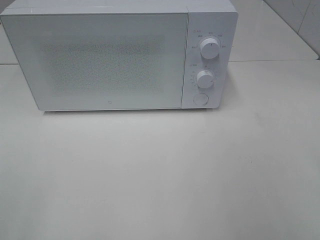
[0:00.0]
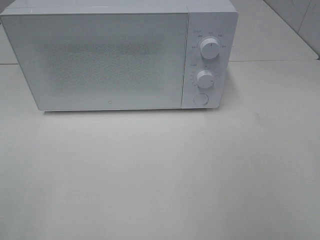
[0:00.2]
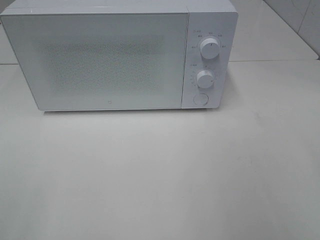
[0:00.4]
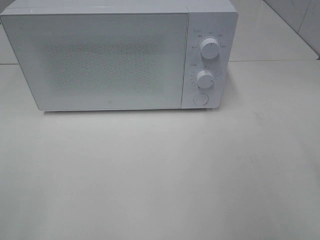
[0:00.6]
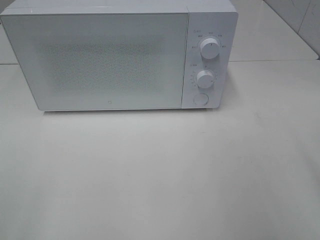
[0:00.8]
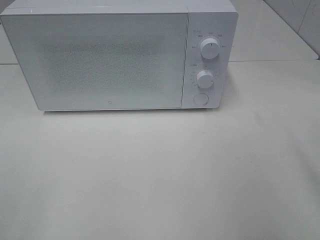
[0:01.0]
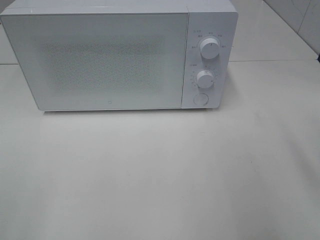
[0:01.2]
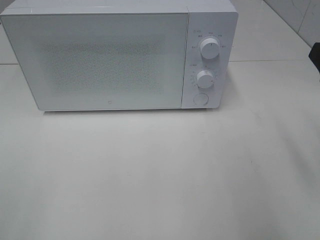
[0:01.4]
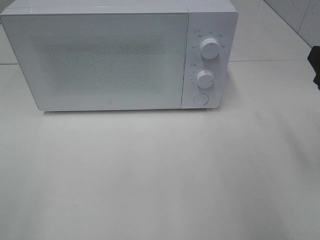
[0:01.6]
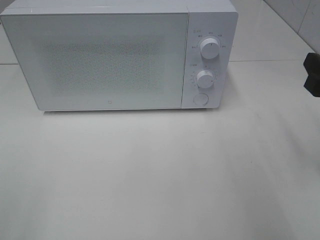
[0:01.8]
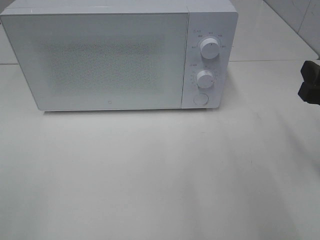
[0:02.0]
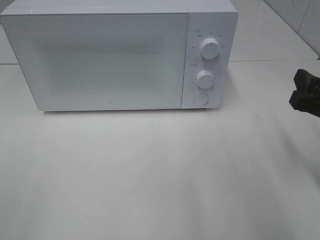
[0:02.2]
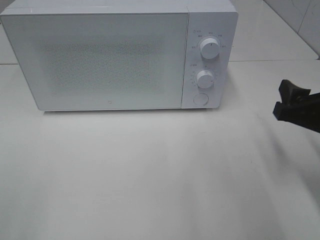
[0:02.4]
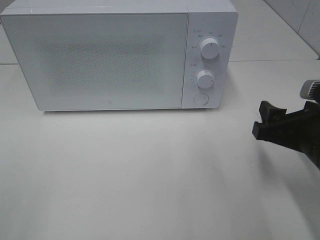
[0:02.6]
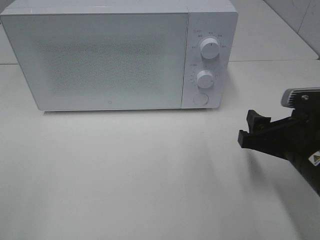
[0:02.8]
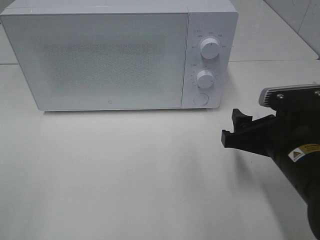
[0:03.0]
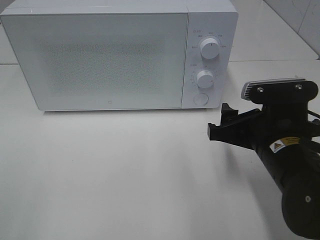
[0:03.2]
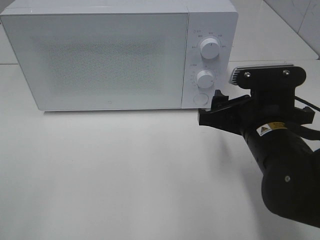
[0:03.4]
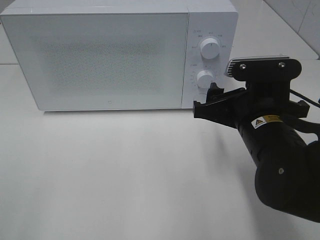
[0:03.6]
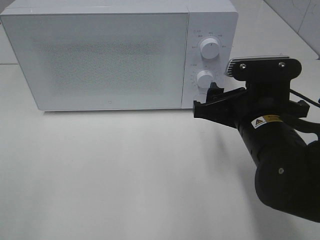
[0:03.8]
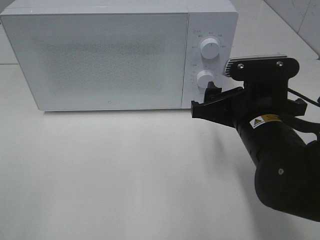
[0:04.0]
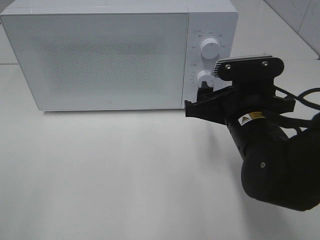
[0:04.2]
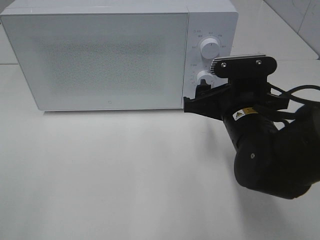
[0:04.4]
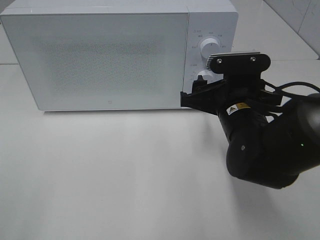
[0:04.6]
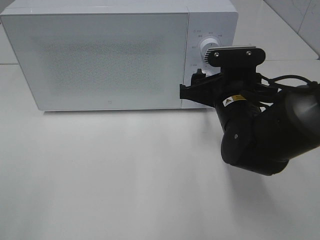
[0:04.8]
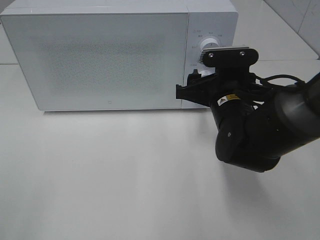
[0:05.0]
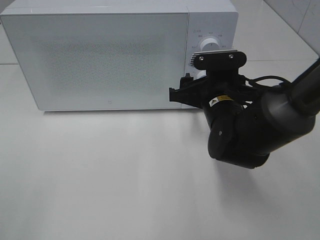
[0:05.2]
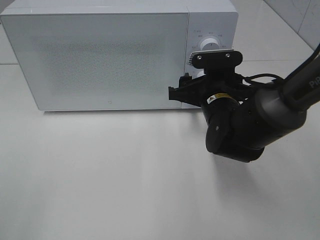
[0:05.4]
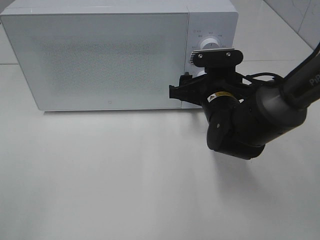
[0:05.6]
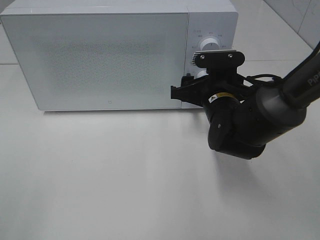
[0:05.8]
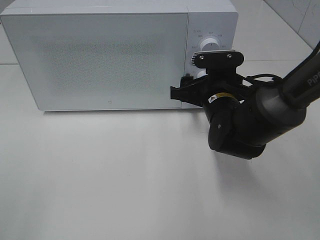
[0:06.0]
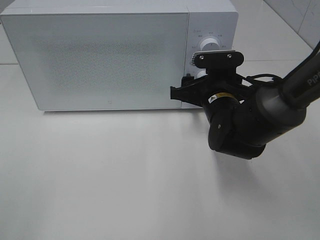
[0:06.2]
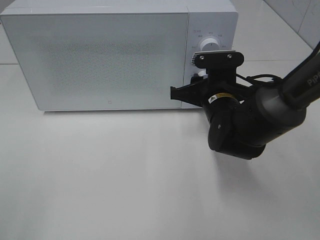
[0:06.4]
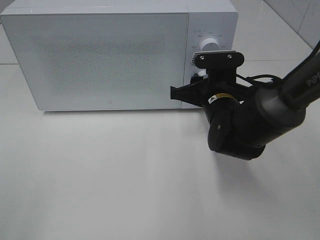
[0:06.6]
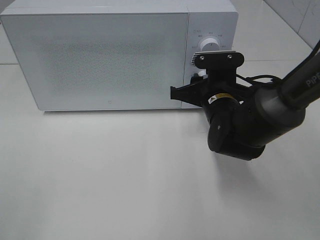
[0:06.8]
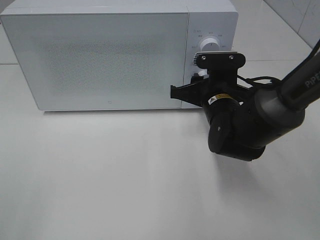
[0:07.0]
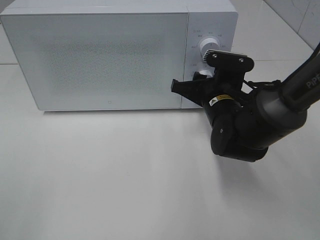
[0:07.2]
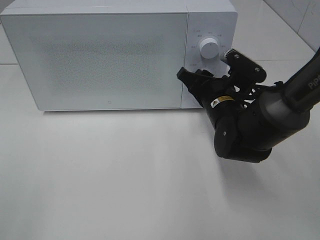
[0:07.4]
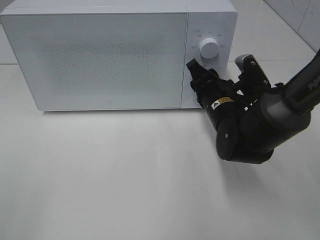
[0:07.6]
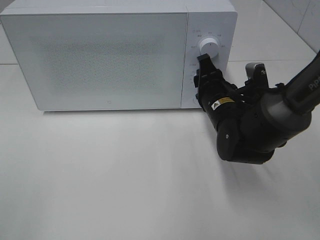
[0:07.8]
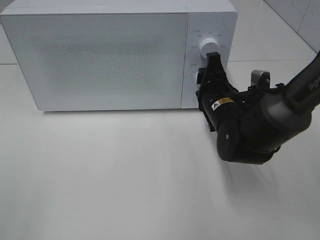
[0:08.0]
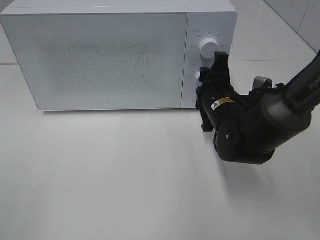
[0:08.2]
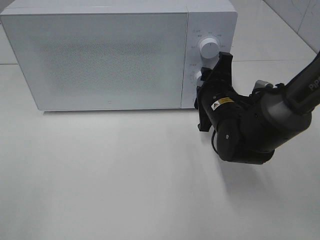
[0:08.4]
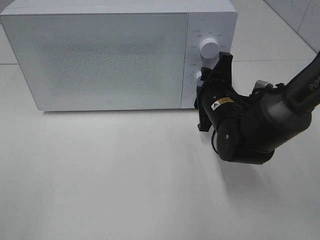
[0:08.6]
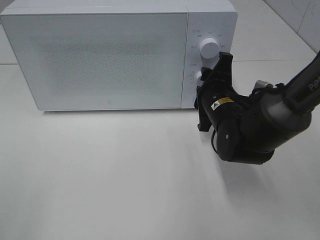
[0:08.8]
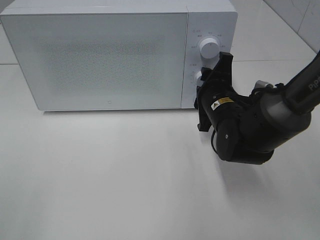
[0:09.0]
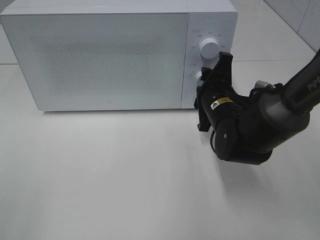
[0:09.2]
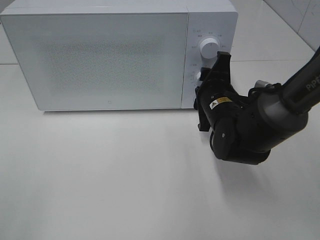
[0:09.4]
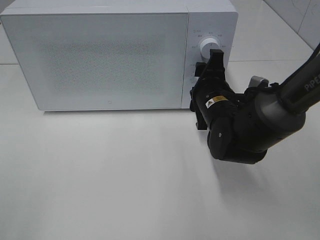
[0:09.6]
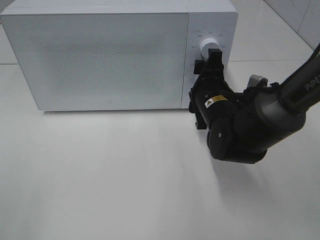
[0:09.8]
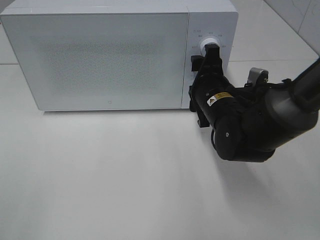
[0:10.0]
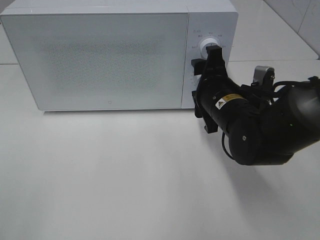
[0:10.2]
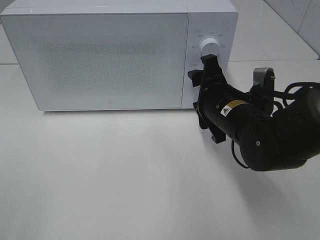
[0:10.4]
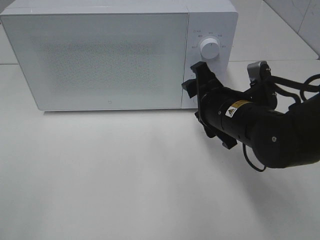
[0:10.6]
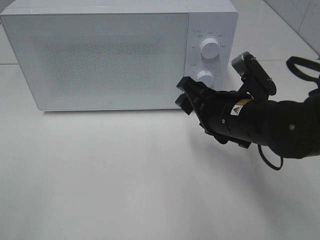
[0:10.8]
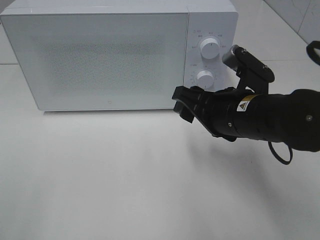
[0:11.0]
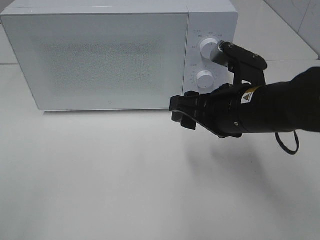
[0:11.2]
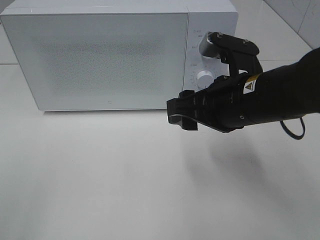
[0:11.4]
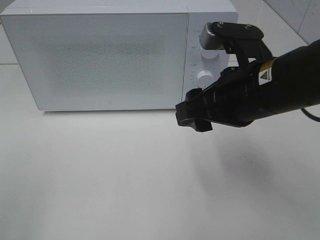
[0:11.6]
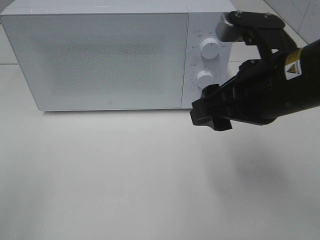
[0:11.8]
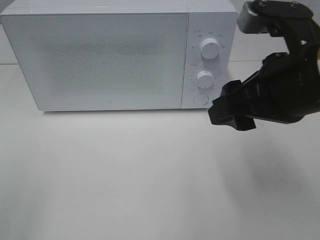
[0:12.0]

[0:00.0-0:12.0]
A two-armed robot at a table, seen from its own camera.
Task of the whole recording: Heat the burger.
Step, 0:00.0 to 0:09.8: Right hand: twist timer button.
0:01.6 to 0:03.0: The right gripper travels to the left and downward by roughly 15 cm.
0:03.0 to 0:04.4: The right gripper shifts approximately 10 cm forward and to the left.
0:04.4 to 0:06.0: The right gripper moves forward, about 5 cm.
0:06.0 to 0:07.6: The right gripper closes its fingers.
0:10.4 to 0:12.0: The right gripper goes about 15 cm upward and backward.

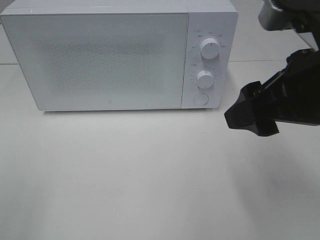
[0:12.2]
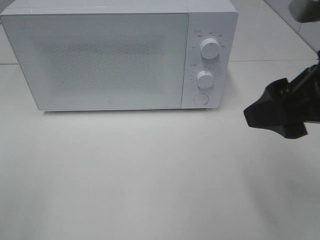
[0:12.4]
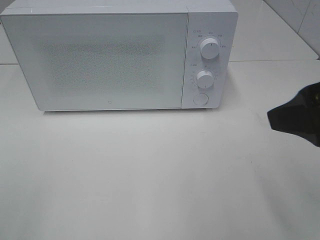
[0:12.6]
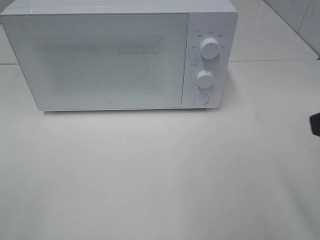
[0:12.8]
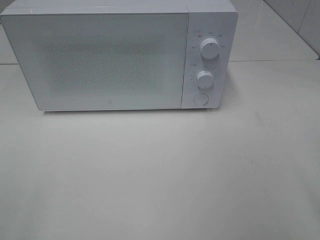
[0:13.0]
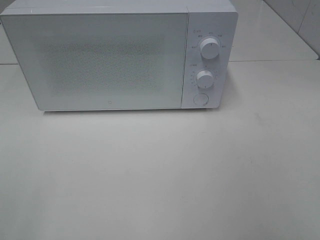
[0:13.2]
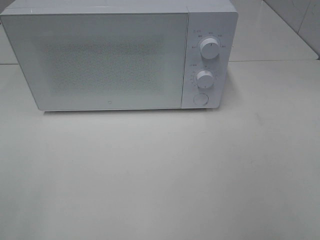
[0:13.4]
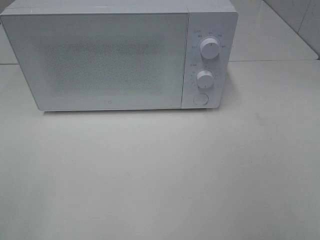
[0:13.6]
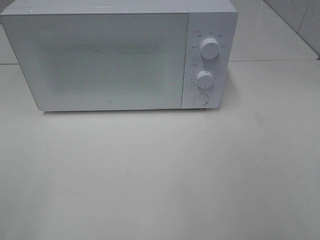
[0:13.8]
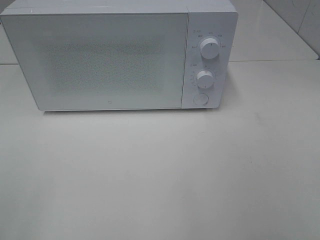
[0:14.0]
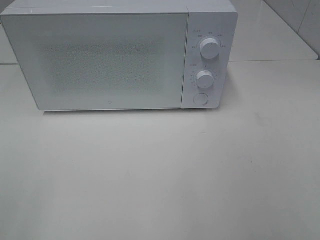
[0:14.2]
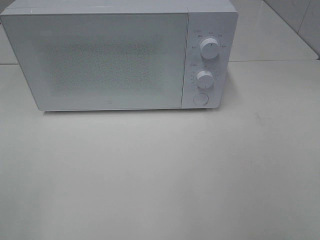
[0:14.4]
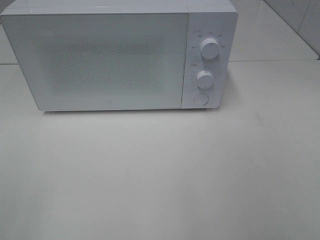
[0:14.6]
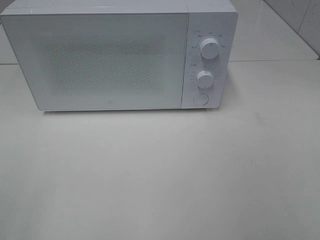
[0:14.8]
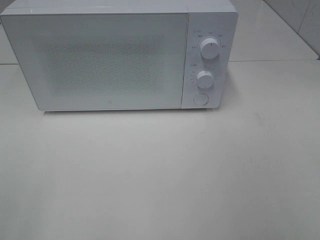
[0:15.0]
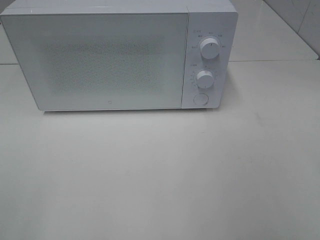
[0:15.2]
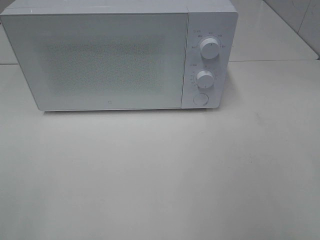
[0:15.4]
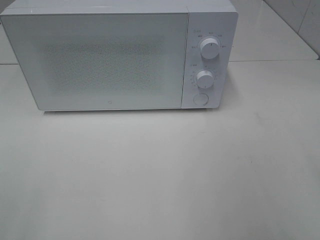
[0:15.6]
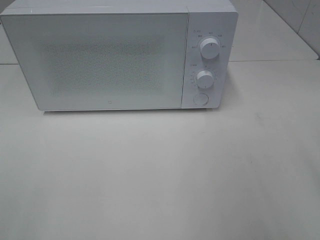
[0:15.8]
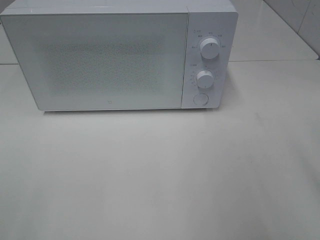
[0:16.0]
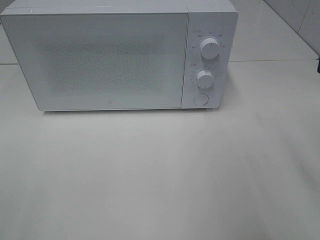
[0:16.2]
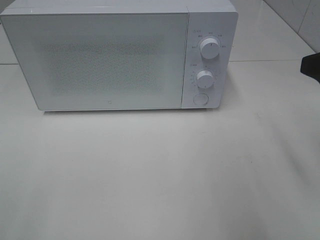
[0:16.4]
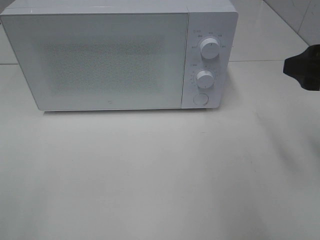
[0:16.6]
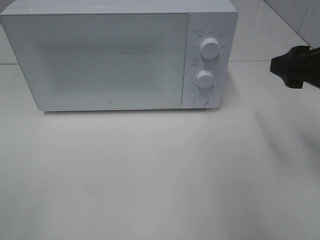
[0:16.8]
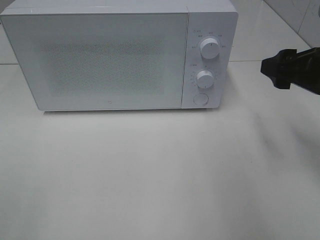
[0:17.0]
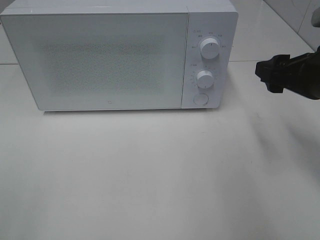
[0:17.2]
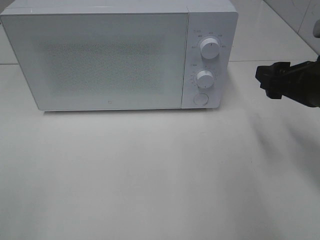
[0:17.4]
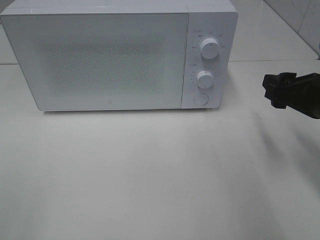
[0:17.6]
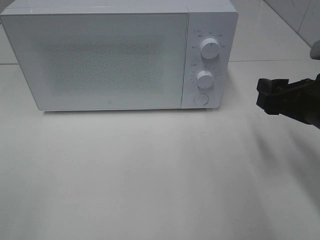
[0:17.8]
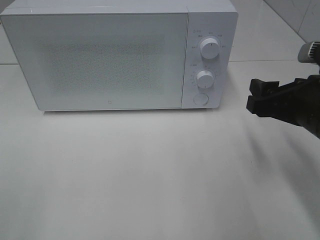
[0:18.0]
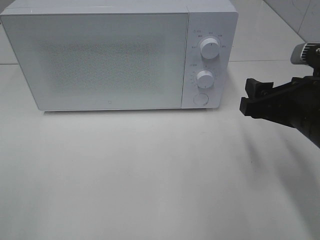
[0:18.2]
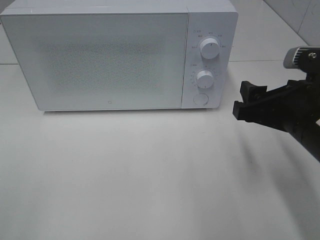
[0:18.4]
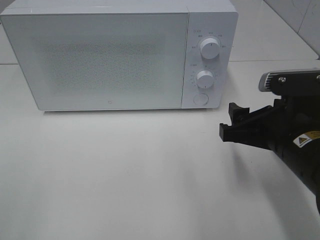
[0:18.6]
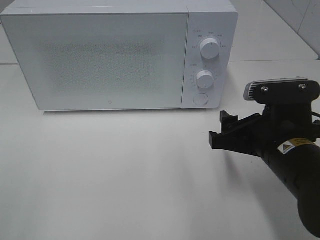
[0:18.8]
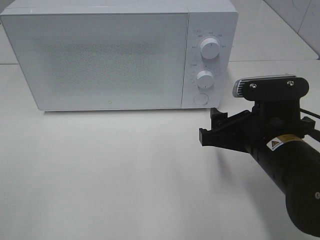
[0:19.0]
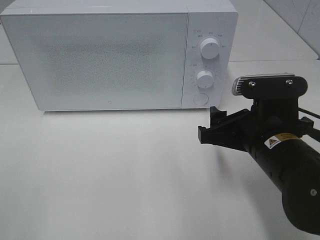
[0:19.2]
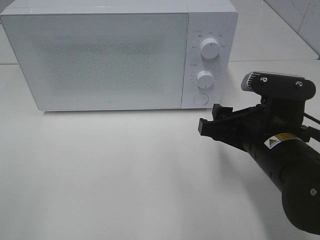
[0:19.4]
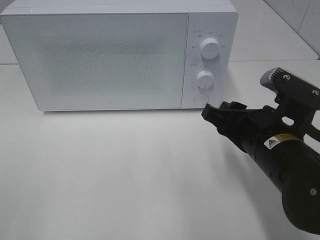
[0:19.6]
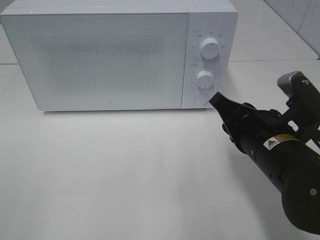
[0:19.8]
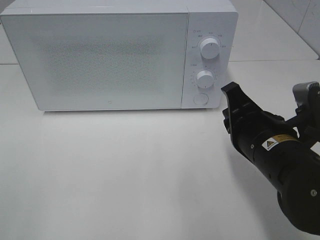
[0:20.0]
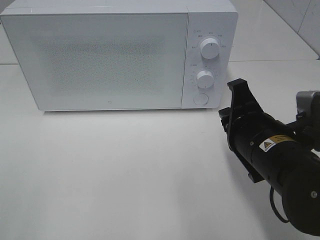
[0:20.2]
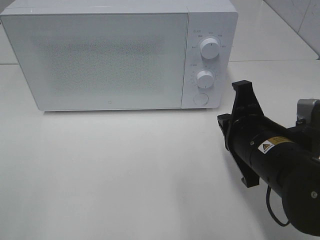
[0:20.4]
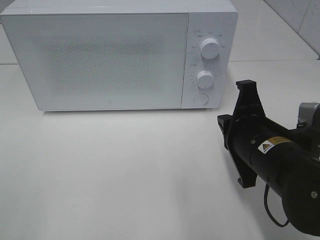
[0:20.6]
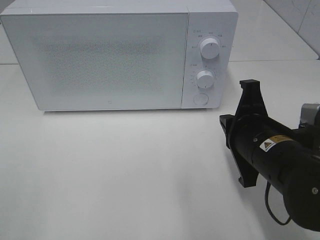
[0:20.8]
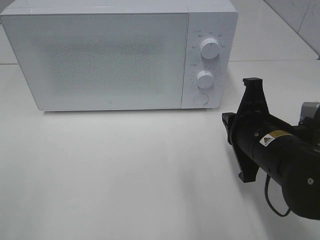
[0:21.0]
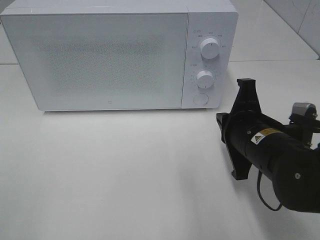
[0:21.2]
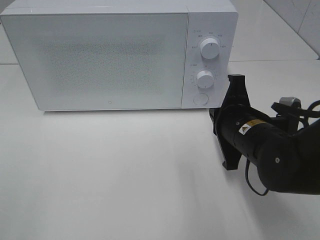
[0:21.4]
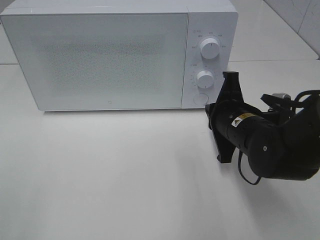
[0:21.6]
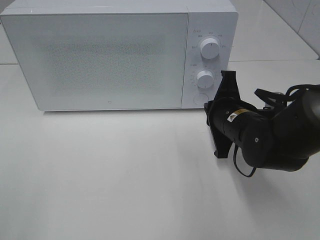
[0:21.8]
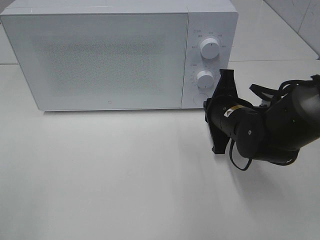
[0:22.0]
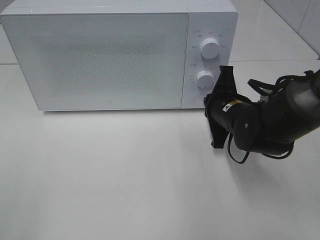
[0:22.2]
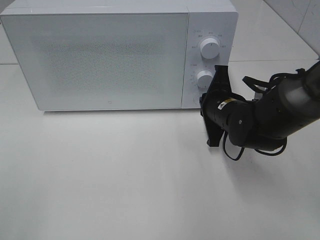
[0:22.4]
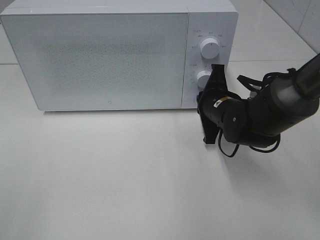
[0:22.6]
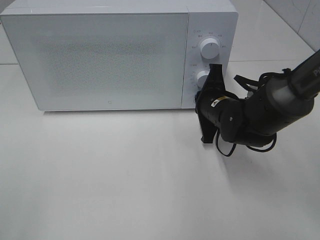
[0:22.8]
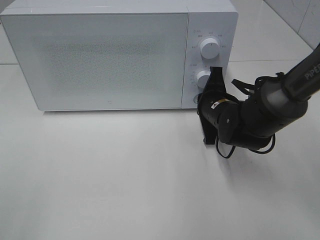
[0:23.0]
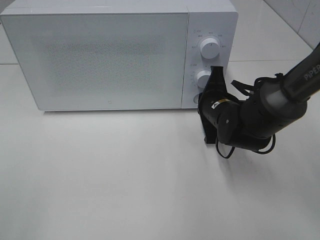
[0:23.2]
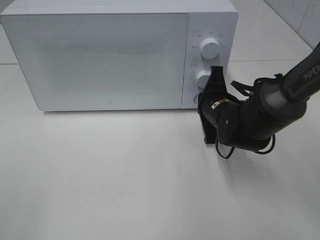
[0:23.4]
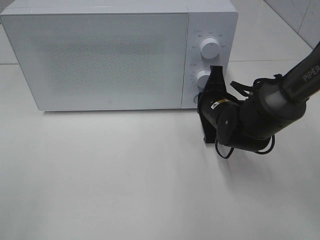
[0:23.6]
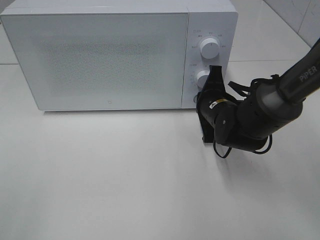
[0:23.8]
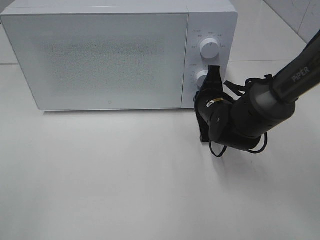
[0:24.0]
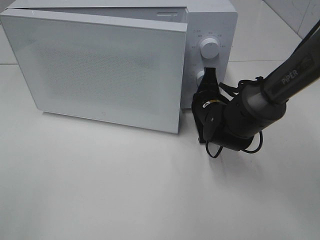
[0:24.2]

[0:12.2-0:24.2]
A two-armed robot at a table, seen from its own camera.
Task of the whole recording: Heat the burger.
0:12.2 to 0:13.8: The right gripper travels backward and to the right by some 20 cm.
0:15.2 to 0:16.6: The right gripper is displaced forward by roughly 15 cm.
0:16.6 to 0:18.2: The right gripper travels downward by roughly 5 cm.
0:18.2 to 0:19.8: The right gripper moves to the left, about 5 cm, and closes its fingers.
0:21.2 to 0:22.6: The right gripper travels forward by roughly 10 cm.
0:22.6 to 0:24.2: There are only small adjustments of the grippers.
